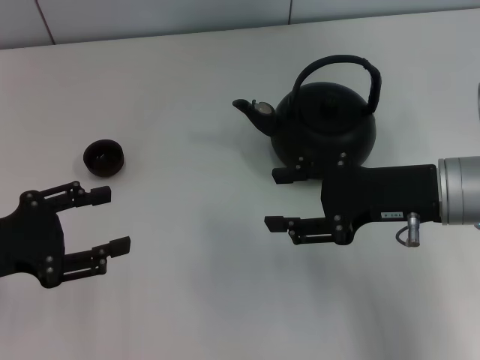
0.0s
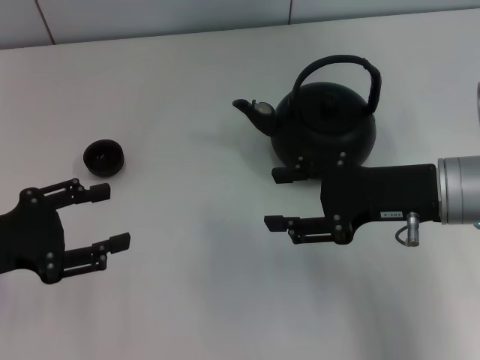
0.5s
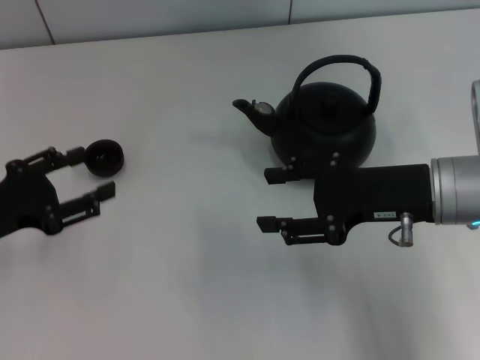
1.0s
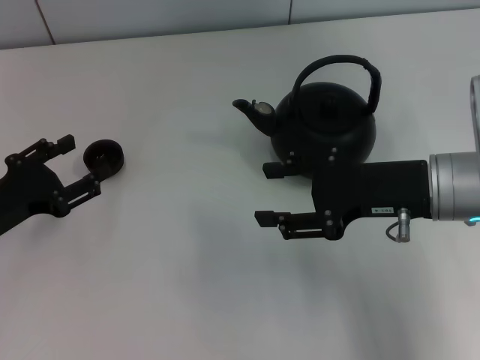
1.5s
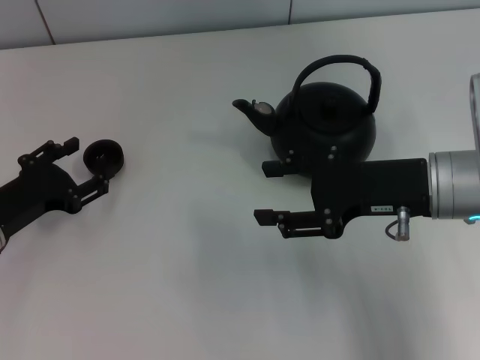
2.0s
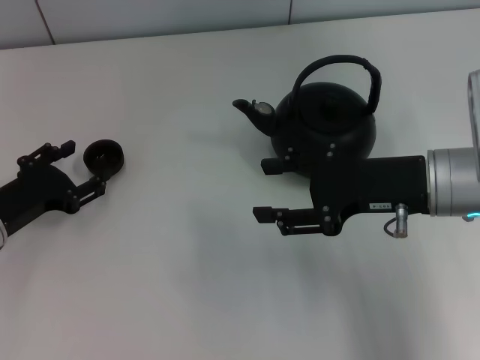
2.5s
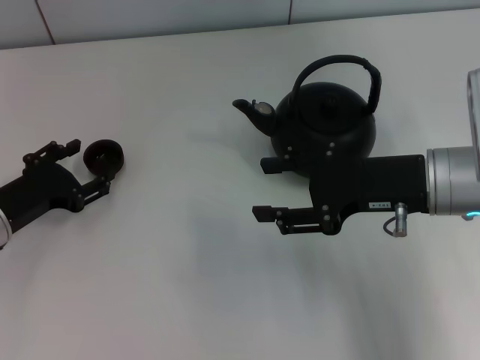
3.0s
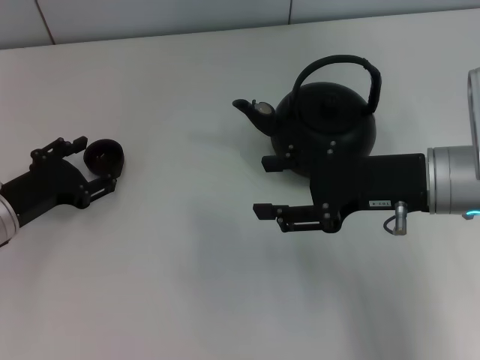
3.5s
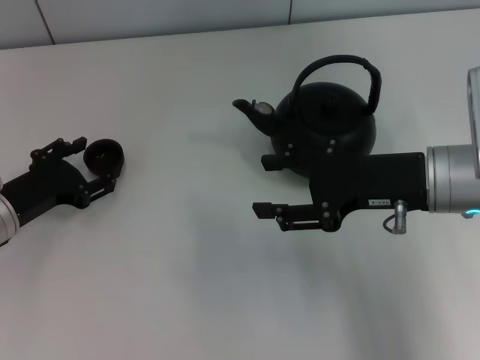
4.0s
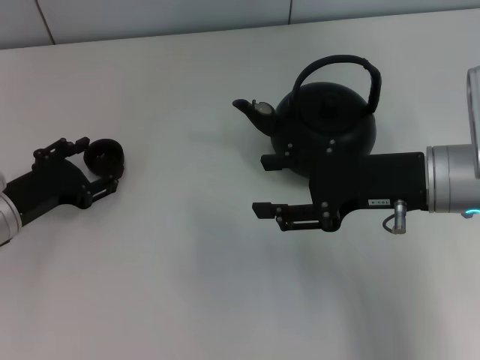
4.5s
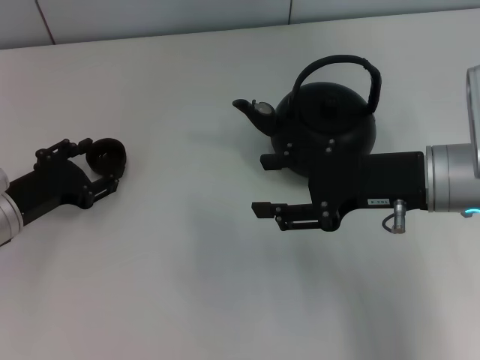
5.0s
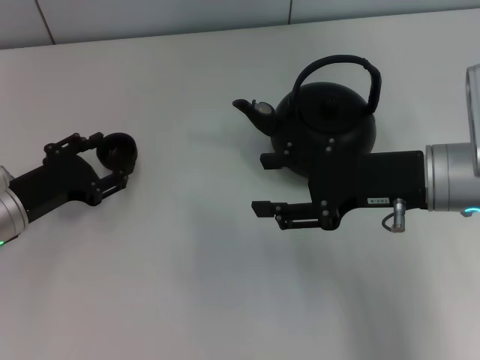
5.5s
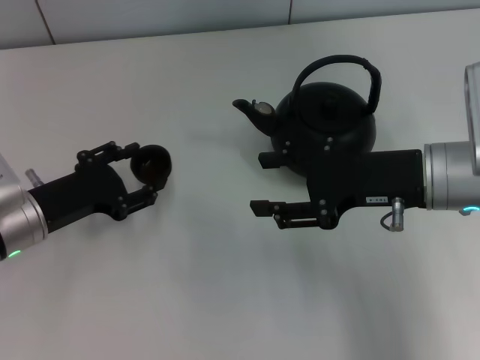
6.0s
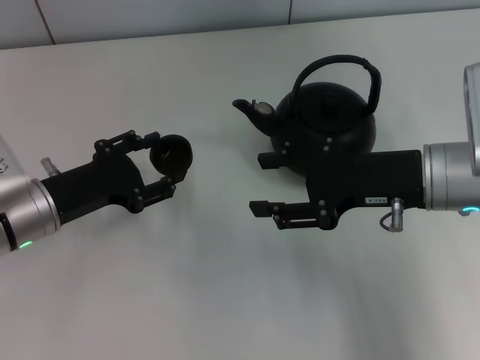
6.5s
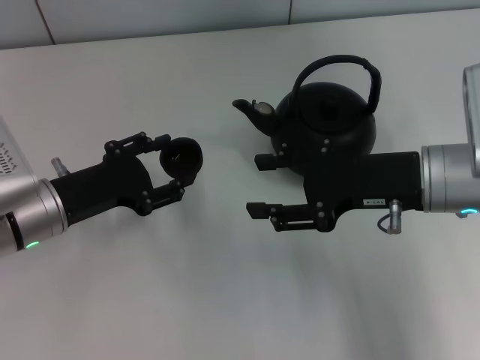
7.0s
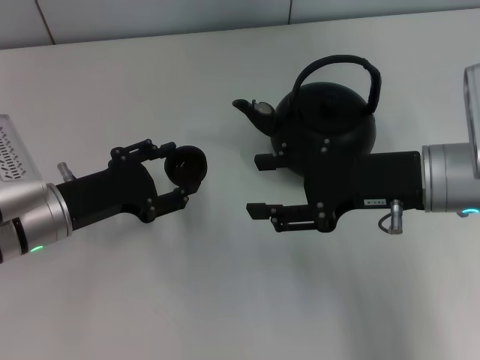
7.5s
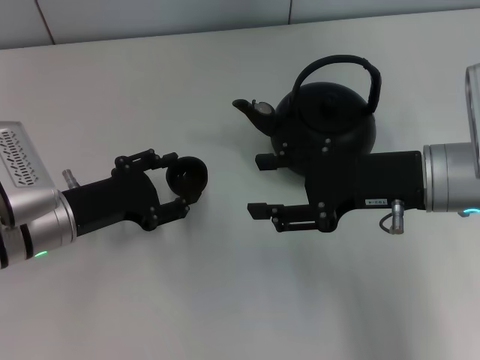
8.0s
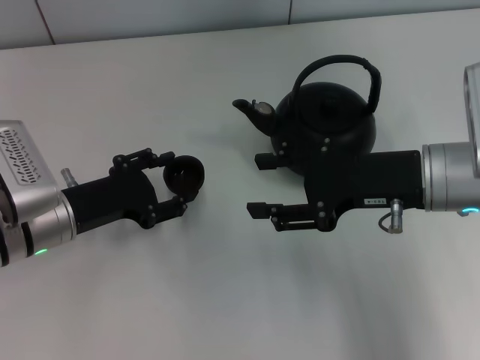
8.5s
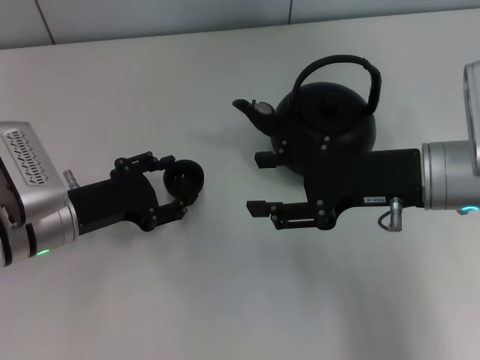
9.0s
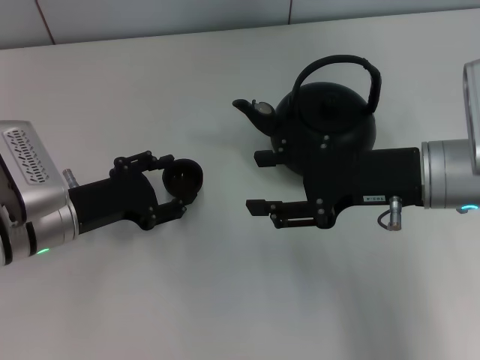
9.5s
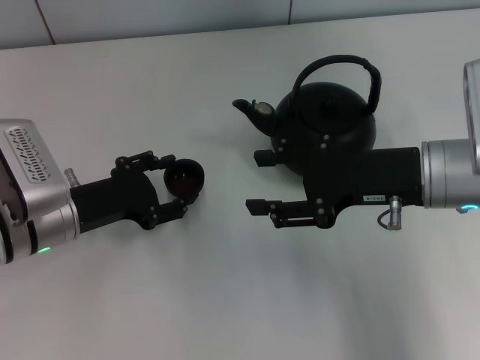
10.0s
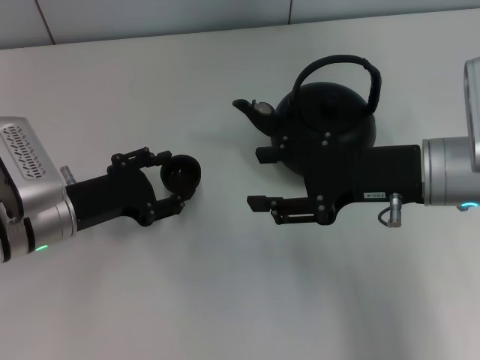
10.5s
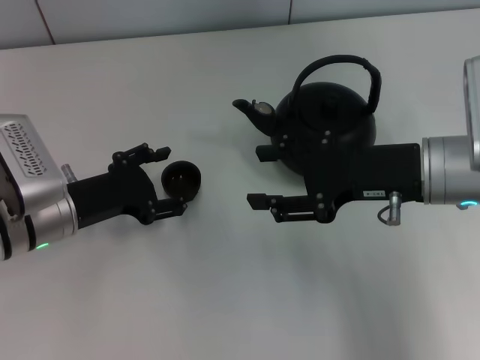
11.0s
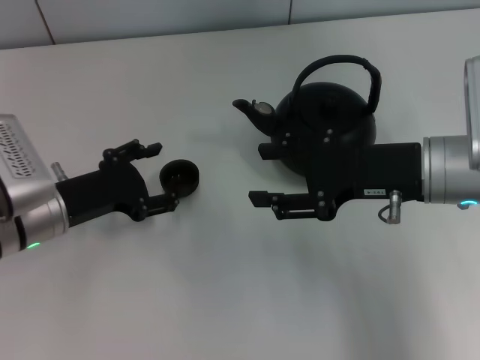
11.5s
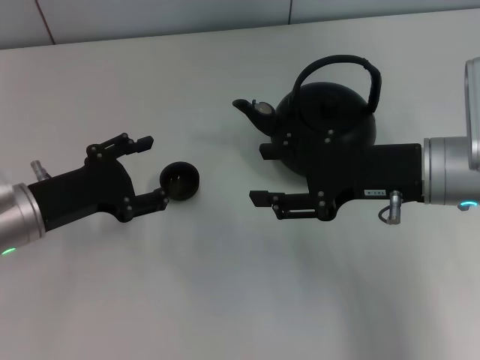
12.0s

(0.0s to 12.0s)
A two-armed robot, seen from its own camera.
Task of the whole recording: Grasp the handle of the teapot with one hand and pour tea into the teacup.
Step, 0.0s - 5.5s: Pick up the teacup with the left gripper.
0.0s - 2.0s: The left gripper moves downward, approximately 5 cm.
2.0s - 6.0s: The grippers move only a little.
6.0s - 8.0s: The left gripper opens.
8.0s - 10.0s: The left gripper opens up.
10.0s - 12.0s: The grippers stay close to where they were, moving slightly.

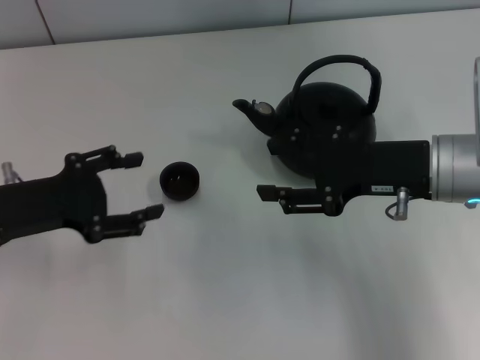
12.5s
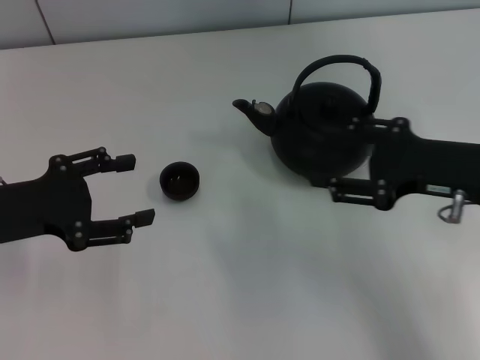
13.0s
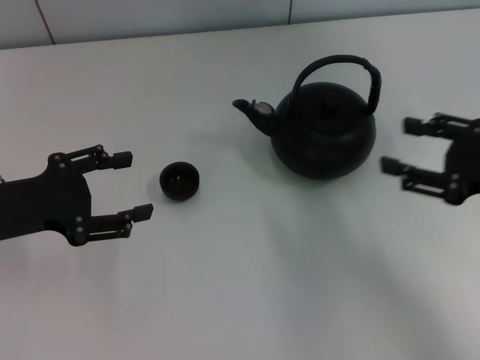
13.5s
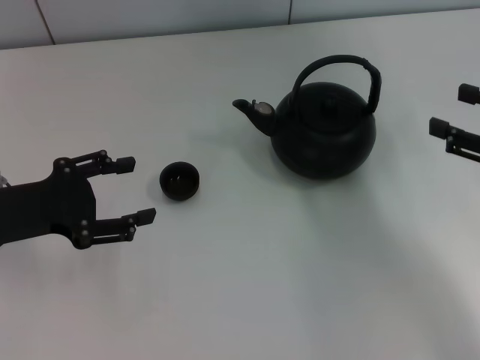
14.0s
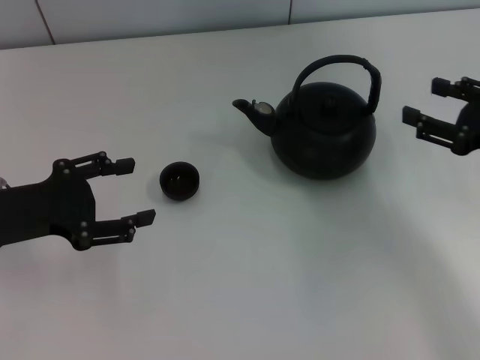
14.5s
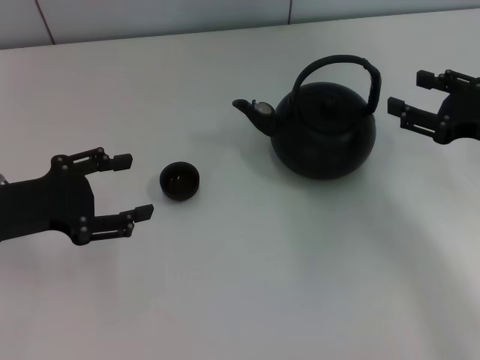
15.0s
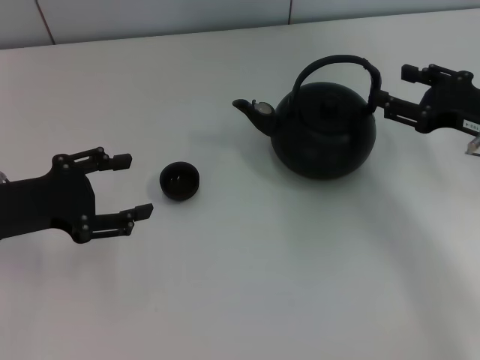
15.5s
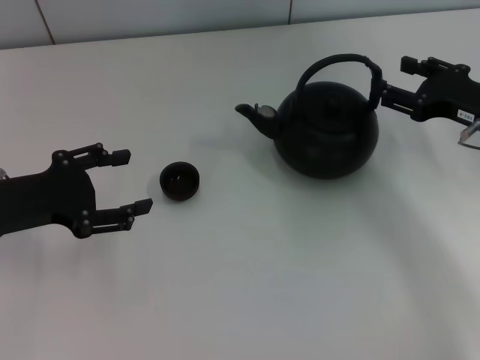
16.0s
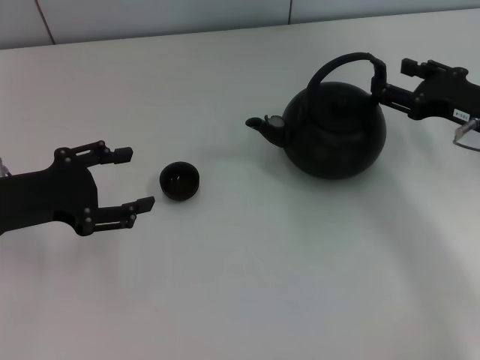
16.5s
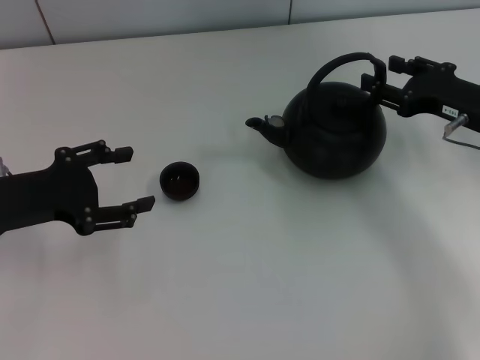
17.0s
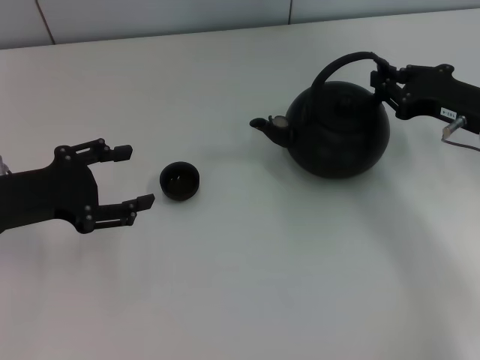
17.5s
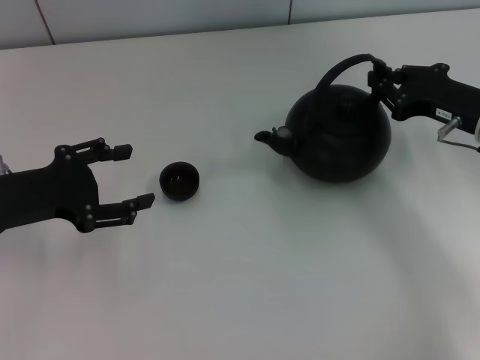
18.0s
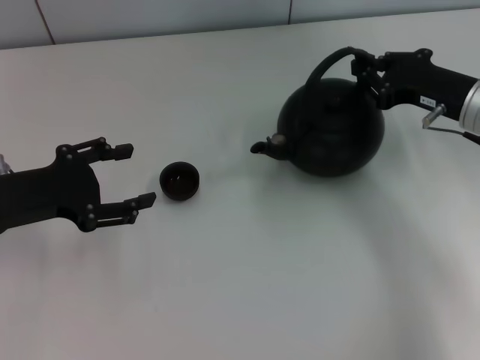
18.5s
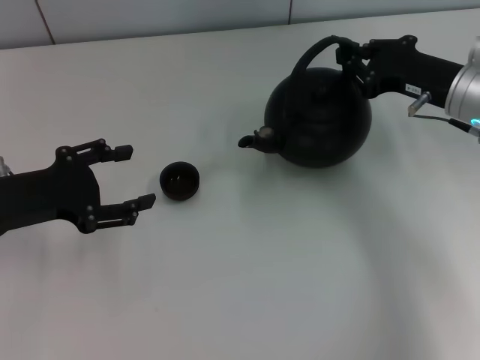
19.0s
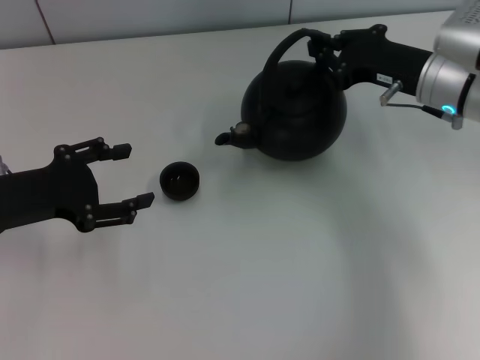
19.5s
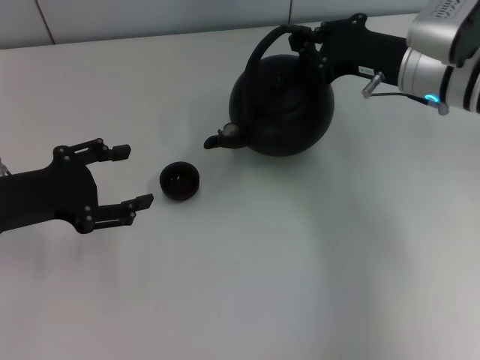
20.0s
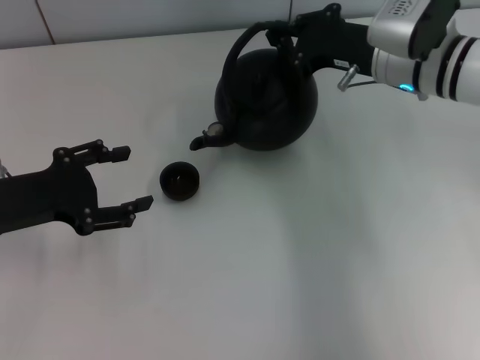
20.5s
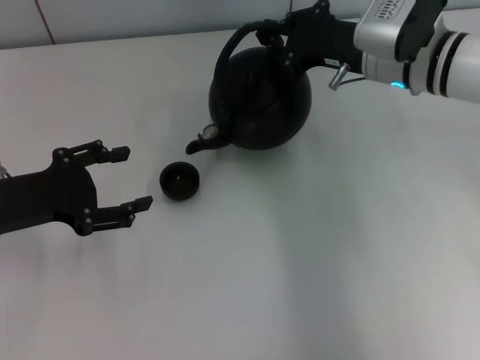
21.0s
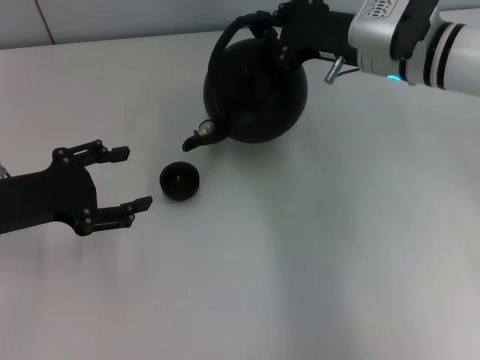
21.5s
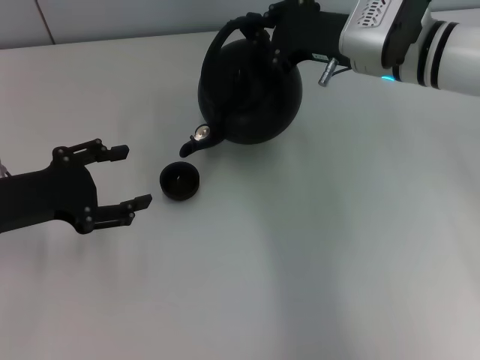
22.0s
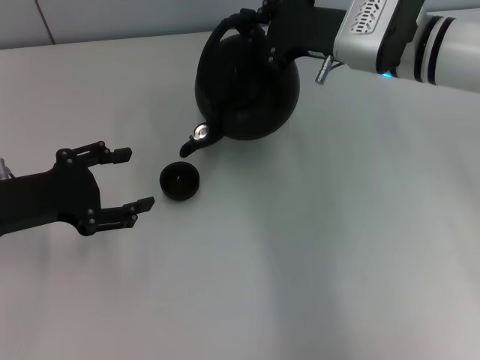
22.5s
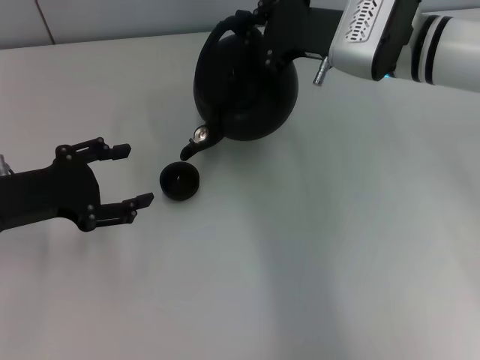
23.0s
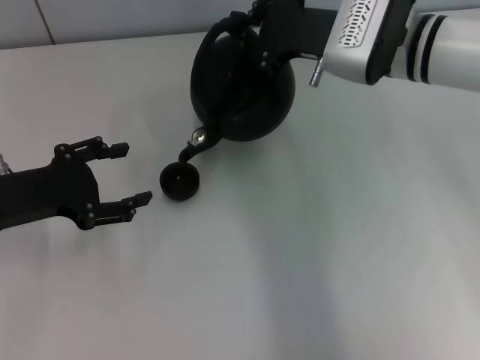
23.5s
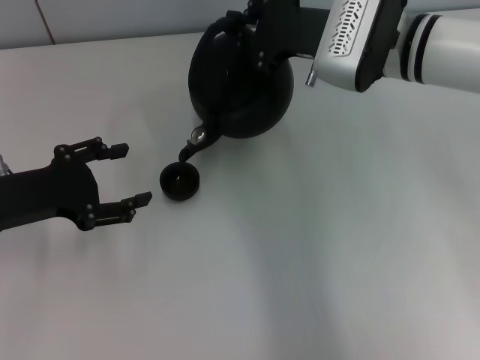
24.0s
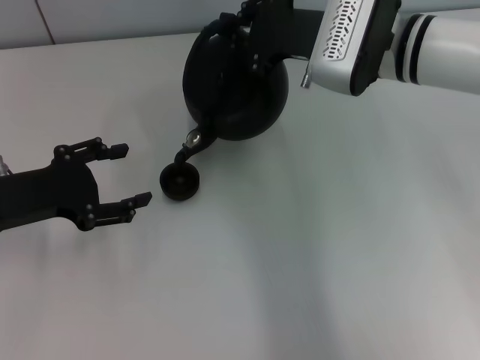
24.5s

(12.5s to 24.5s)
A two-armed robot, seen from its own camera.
Task of the whole recording: Grasp the handle of the teapot with one hand and pour tea into the teacup.
Step, 12.5s - 19.0s: Pick up the teapot with the right gripper.
12.5s - 14.5s: The right gripper is displaced to the right by approximately 10 cm.
14.5s - 16.5s: The right gripper shifts some 5 cm forward.
16.5s - 18.5s: The right gripper closes its fingers.
18.5s - 20.5s: The right gripper is displaced to the left and forward by roughly 10 cm.
20.5s - 22.5s: There are only small adjustments of the grippers.
22.5s - 24.5s: There are only small adjustments of the grippers.

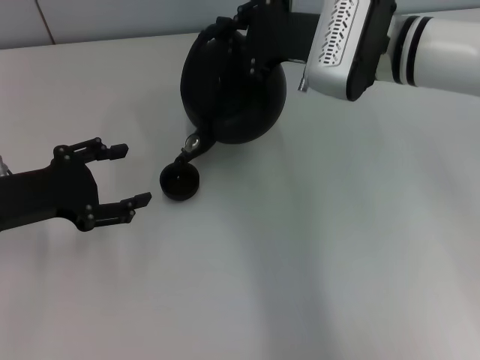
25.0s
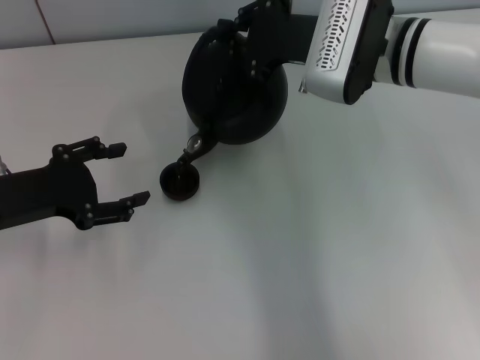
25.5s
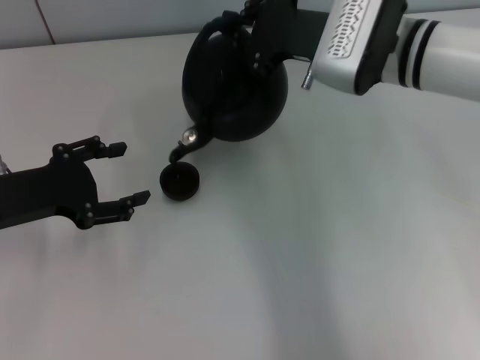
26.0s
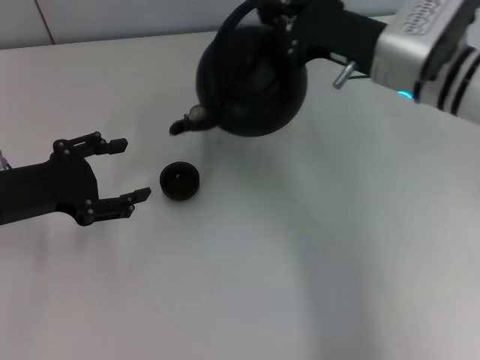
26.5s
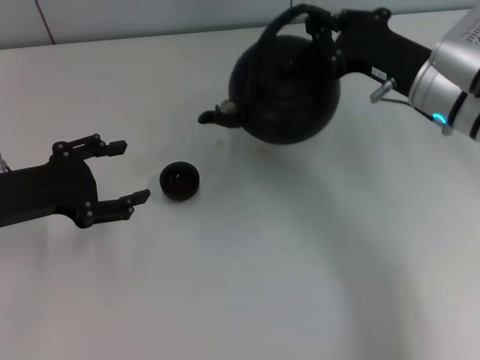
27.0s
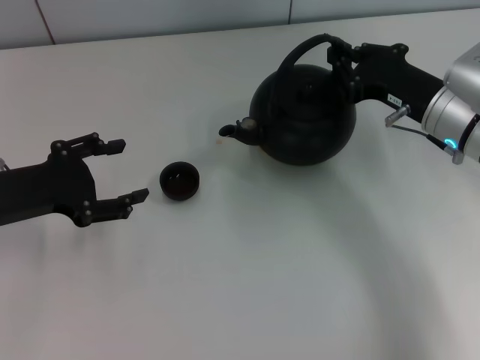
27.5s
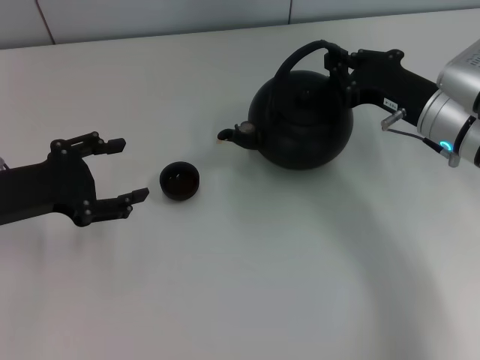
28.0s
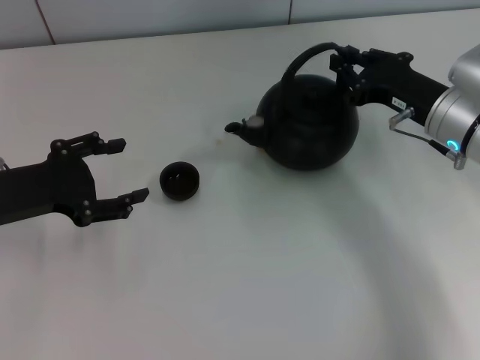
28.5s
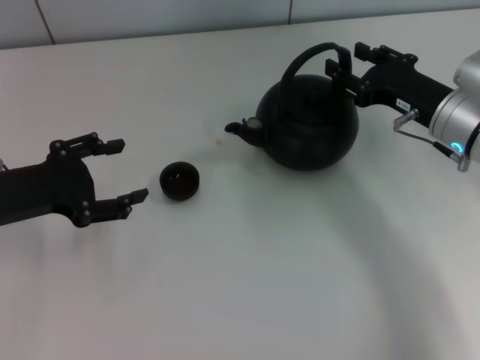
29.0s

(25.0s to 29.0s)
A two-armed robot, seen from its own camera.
Task of the whole recording: Grasp the handle of the teapot with one hand and pour tea into the teacup.
25.0s - 27.0s: The right gripper is displaced to the right by roughly 10 cm.
27.0s - 29.0s: The right gripper opens.
